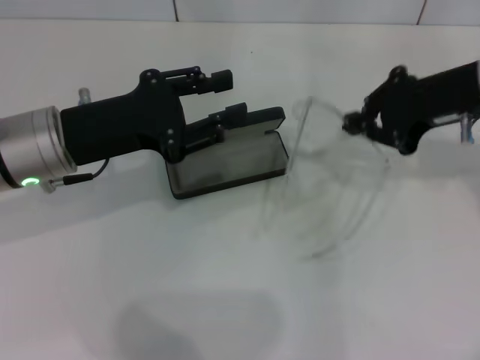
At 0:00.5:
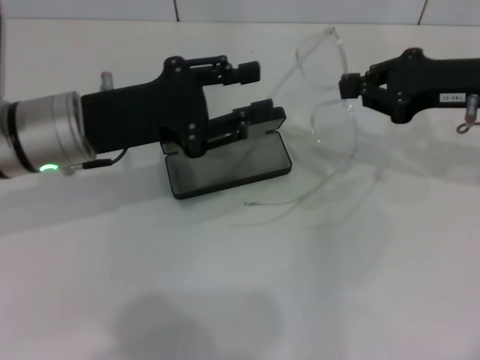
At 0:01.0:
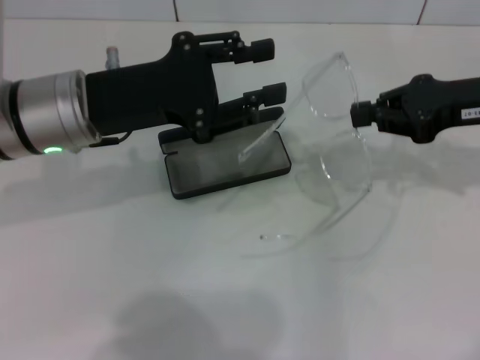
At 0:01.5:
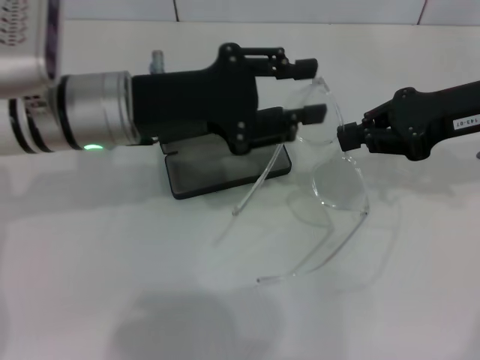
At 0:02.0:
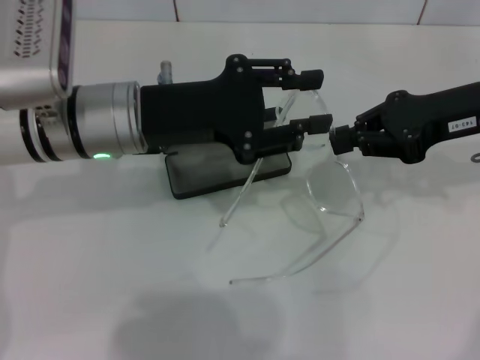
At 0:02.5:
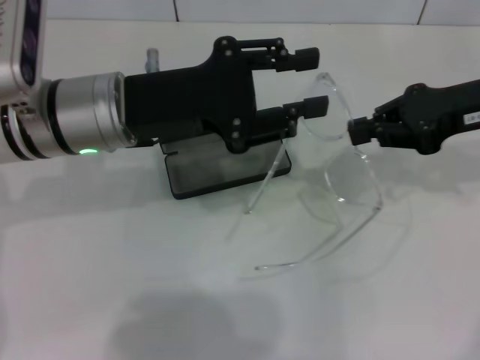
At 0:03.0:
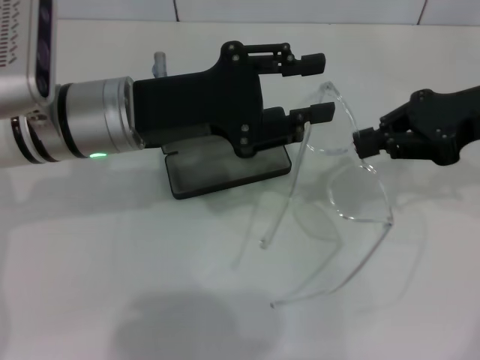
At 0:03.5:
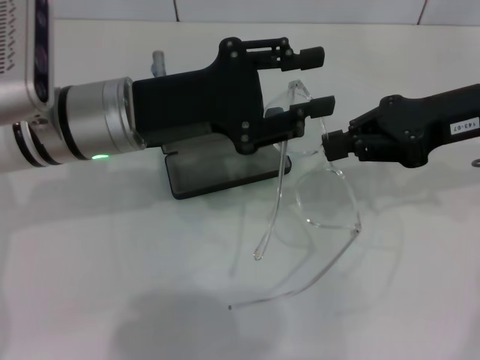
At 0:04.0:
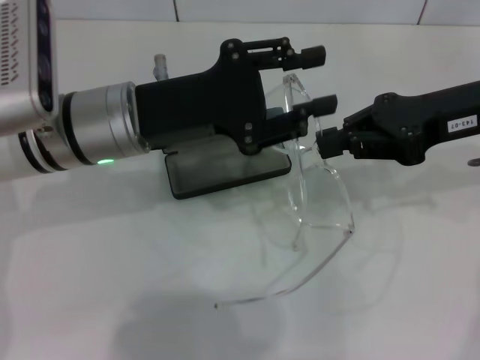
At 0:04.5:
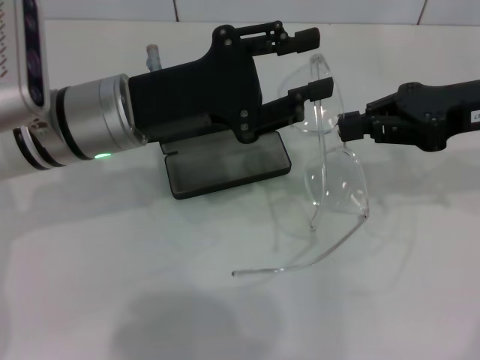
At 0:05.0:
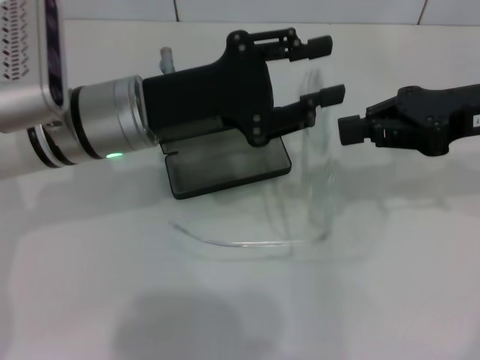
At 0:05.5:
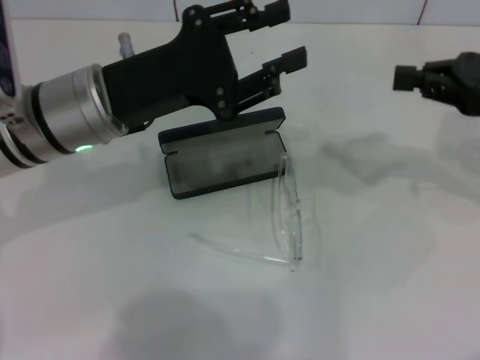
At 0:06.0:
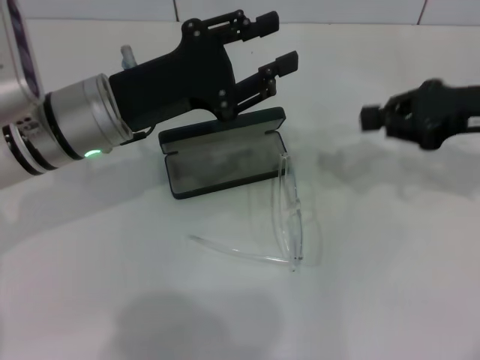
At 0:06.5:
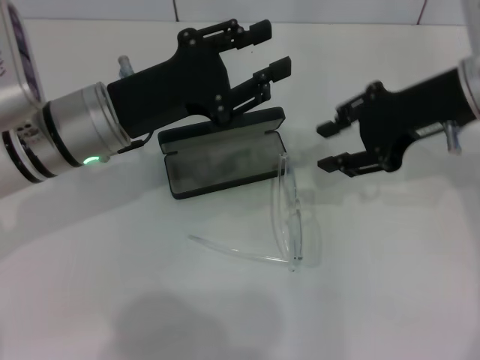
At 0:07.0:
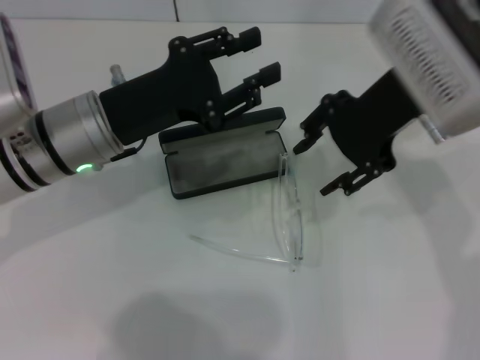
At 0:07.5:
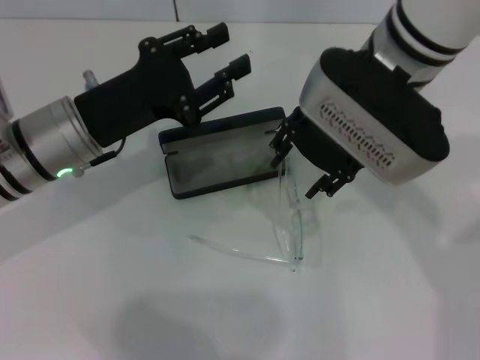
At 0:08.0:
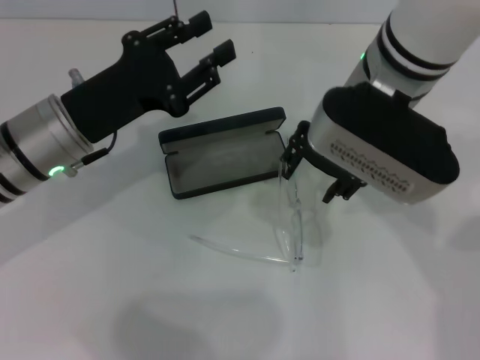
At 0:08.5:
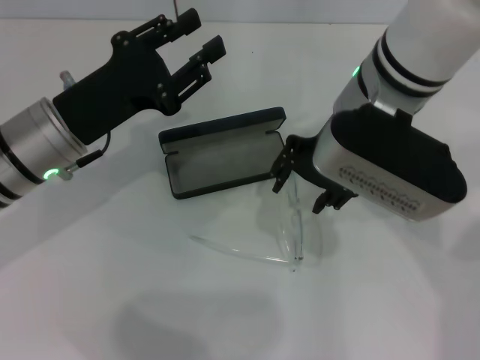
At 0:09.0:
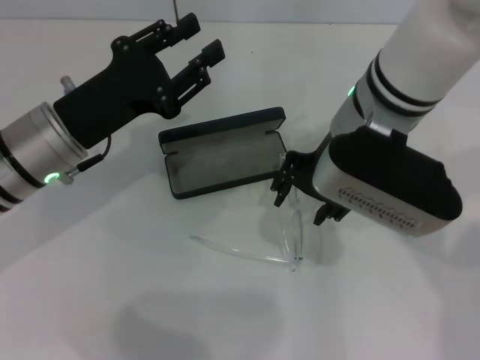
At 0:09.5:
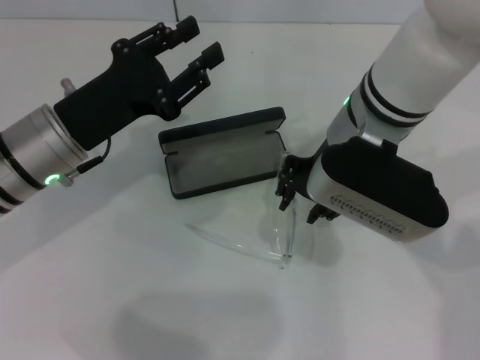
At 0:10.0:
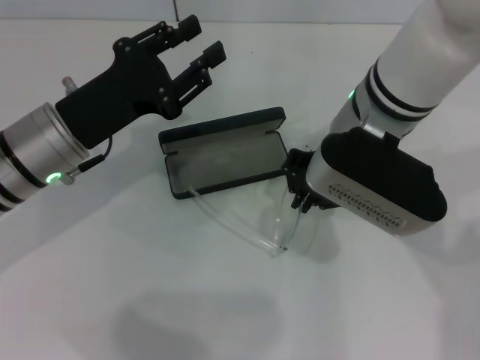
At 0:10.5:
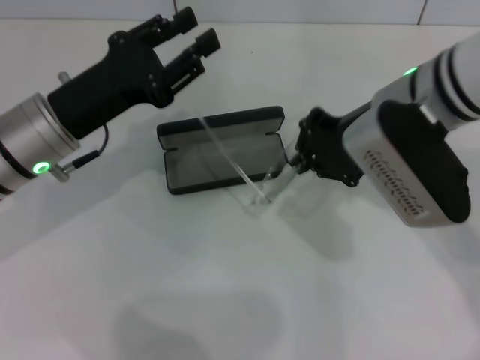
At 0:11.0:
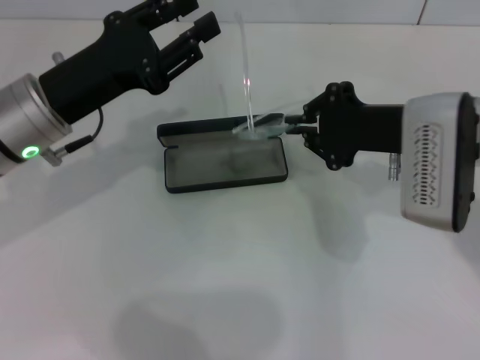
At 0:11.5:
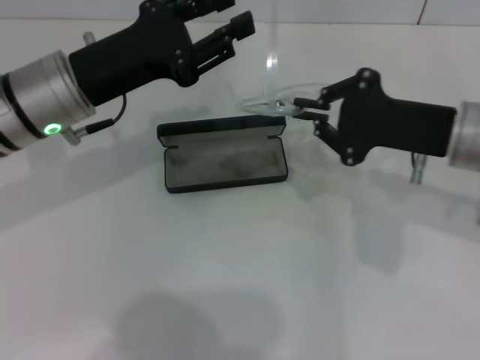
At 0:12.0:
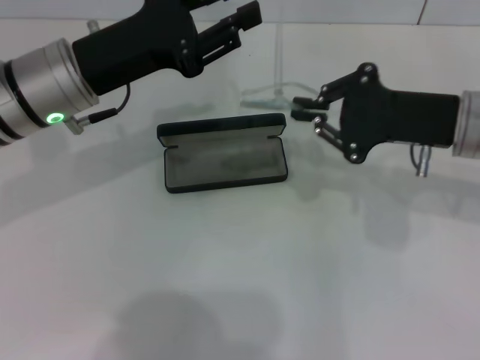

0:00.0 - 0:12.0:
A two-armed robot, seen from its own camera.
Step, 0:00.0 - 0:10.0: Grab the eyeglass frame with your right hand.
0:00.0 - 0:02.0: The left gripper goes roughly 5 cm to the right.
0:02.0 - 0:04.0: The grippers stay close to where they were, moving slightly.
0:06.0 - 0:08.0: The right gripper heads to the left, covering some 20 cm, and opens its fingers.
0:08.0 - 0:10.0: The right gripper closes.
0:10.0 - 0:12.0: The left gripper shifts by approximately 5 cm. Meanwhile the right gripper is displaced to the right by roughly 15 cm.

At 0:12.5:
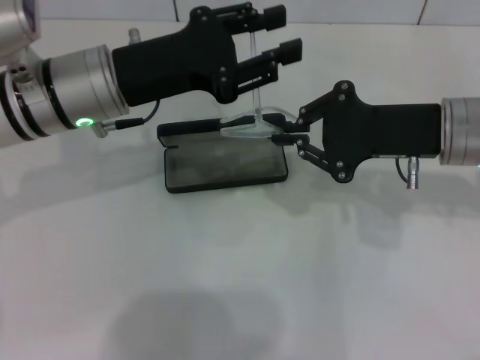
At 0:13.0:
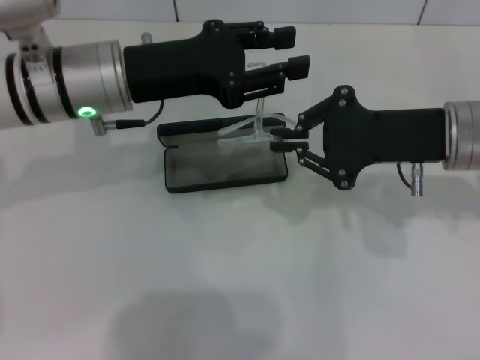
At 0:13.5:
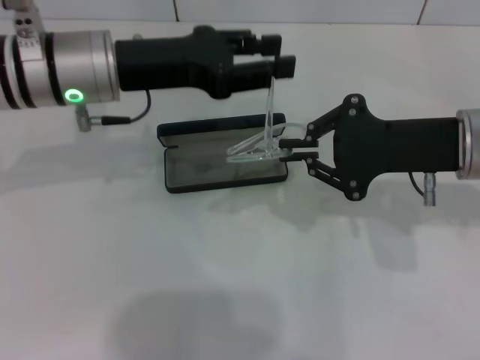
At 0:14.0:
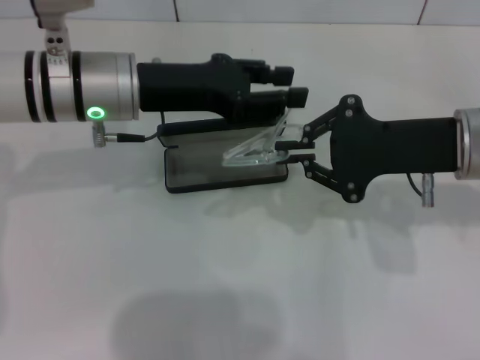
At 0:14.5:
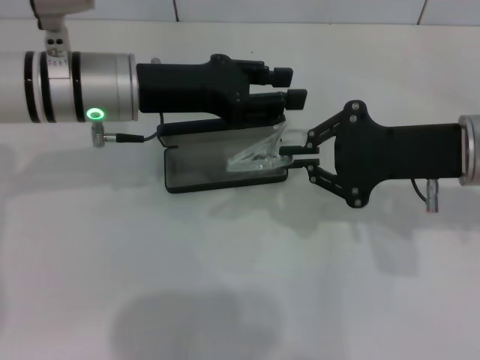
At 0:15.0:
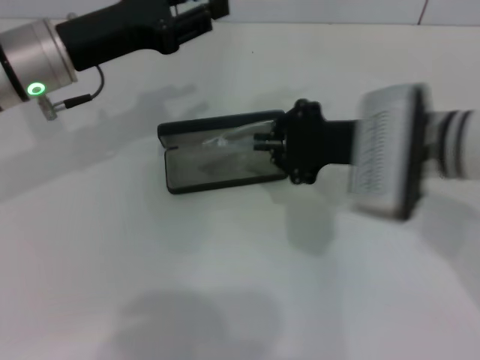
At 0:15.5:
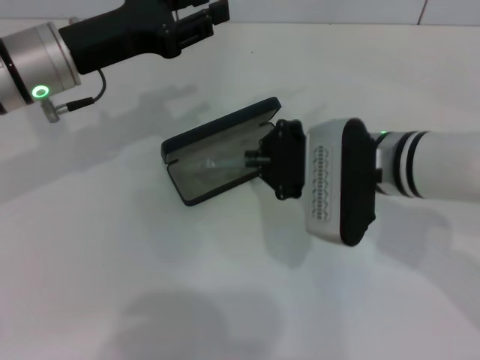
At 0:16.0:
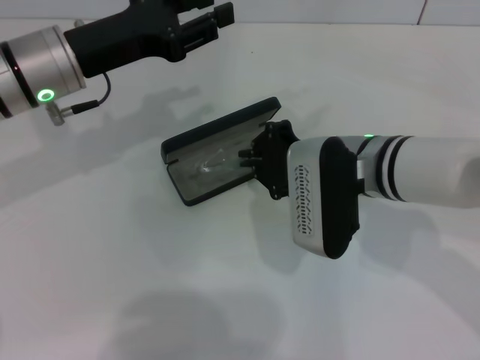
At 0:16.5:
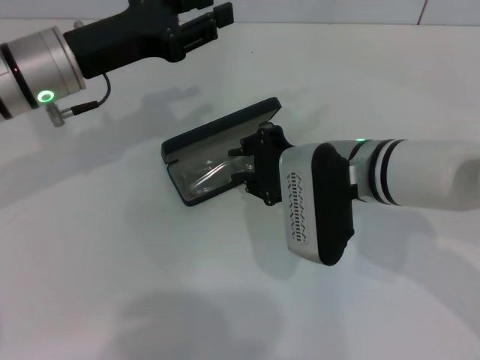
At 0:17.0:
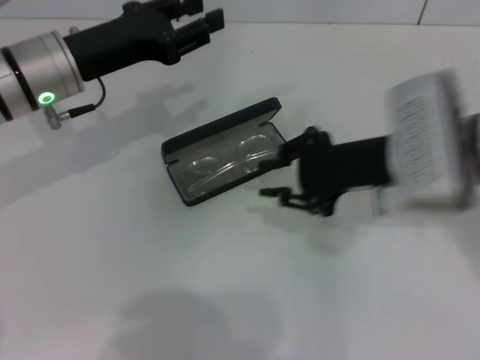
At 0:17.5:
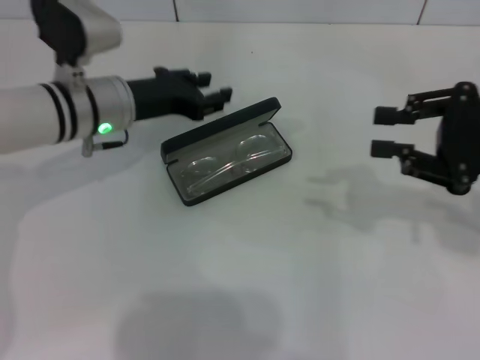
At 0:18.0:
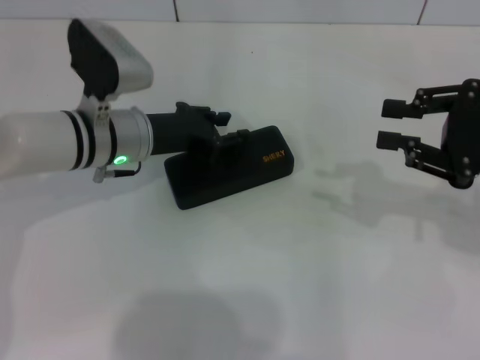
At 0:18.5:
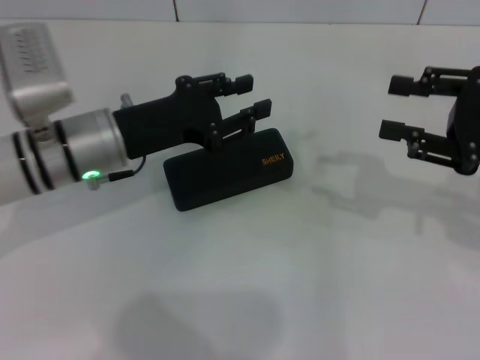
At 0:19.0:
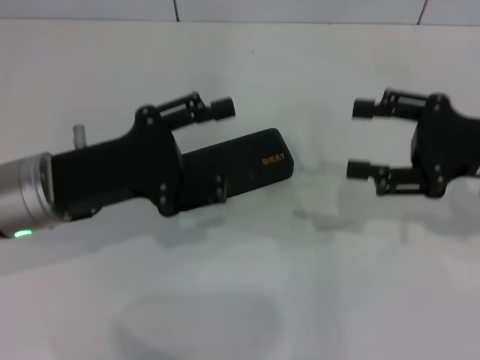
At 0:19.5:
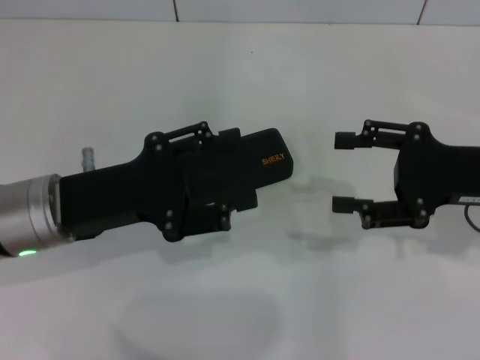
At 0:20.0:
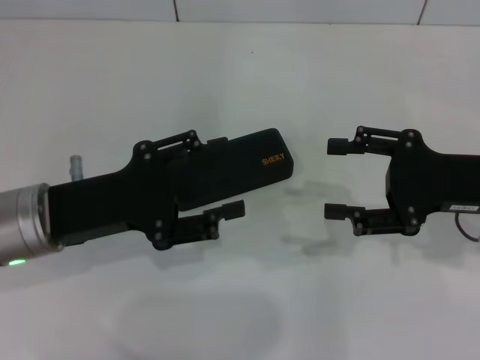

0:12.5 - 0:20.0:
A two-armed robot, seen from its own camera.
Step, 0:12.5 - 0:14.5: Fold the frame with your left hand.
Step, 0:15.0 - 0:16.5: Put the glasses into the case with your right hand.
Step, 0:17.0 - 0:18.0: Close the glasses case with your left hand.
0:14.5 - 0:16.5: The left gripper shifts by approximately 5 cm. The right gripper moves to the left and downward, some 15 cm.
0:16.5 - 0:18.0: The left gripper travels downward by about 10 cm. The right gripper moves to the right, roughly 20 cm.
0:18.0 - 0:20.0: The right gripper ends up roughly 5 cm from where it was, and opens. The left gripper is displaced backward and to the left by about 15 cm, and opens up.

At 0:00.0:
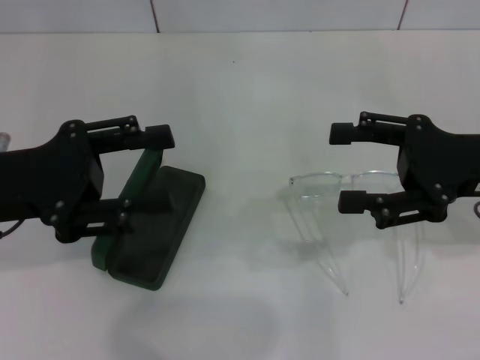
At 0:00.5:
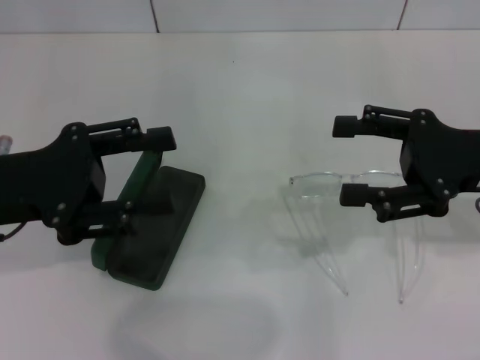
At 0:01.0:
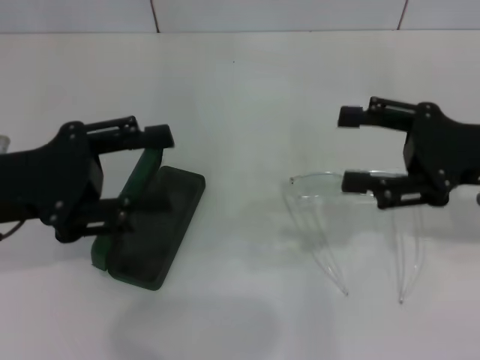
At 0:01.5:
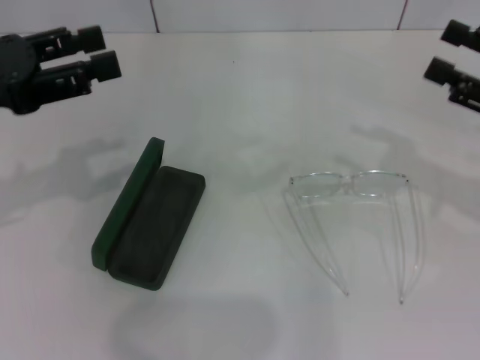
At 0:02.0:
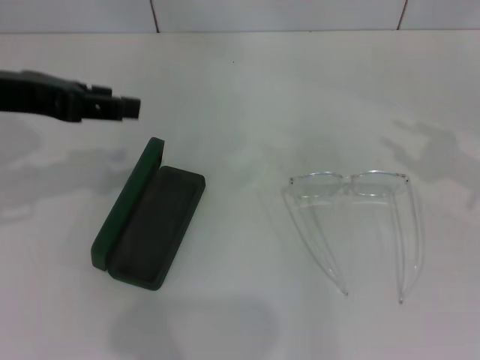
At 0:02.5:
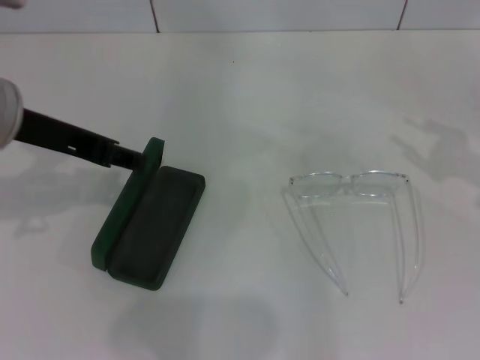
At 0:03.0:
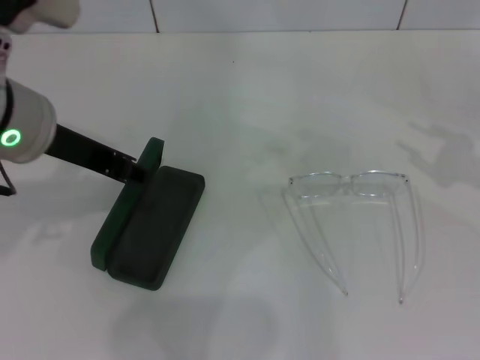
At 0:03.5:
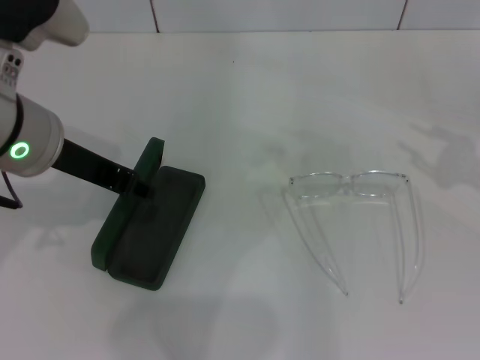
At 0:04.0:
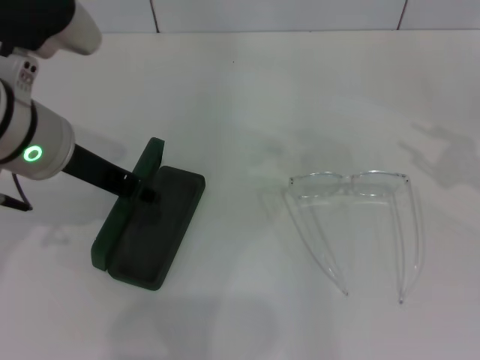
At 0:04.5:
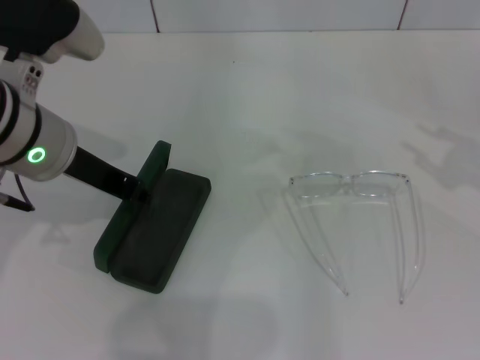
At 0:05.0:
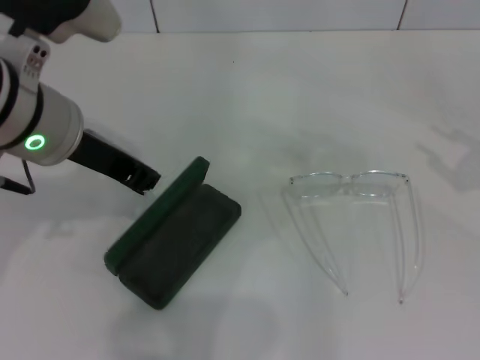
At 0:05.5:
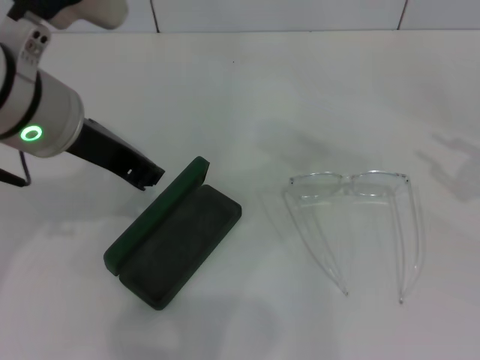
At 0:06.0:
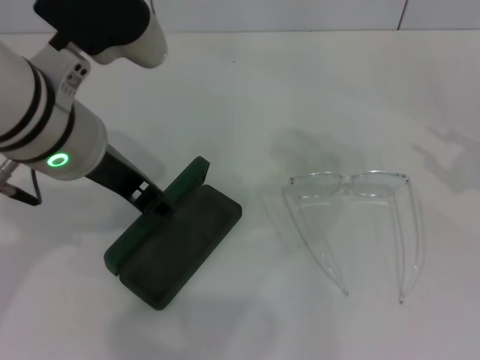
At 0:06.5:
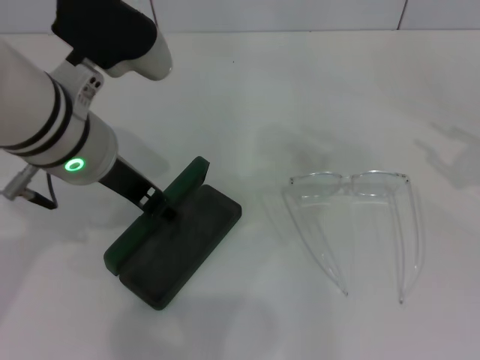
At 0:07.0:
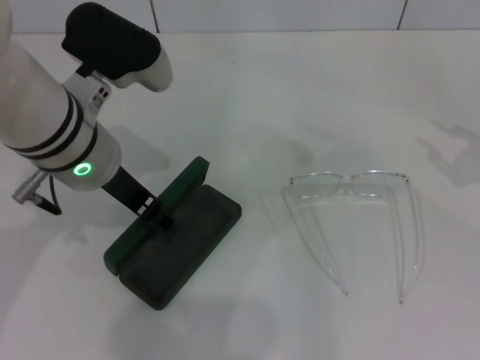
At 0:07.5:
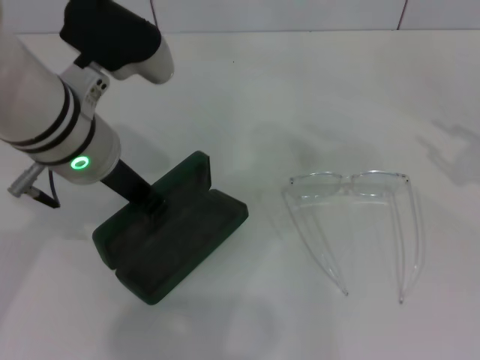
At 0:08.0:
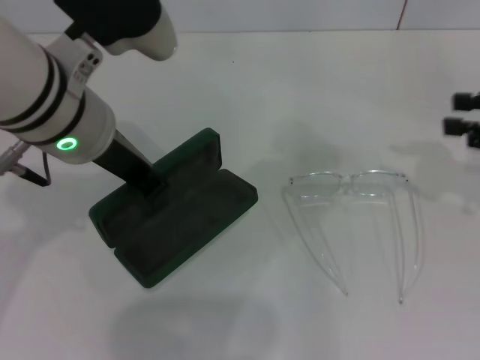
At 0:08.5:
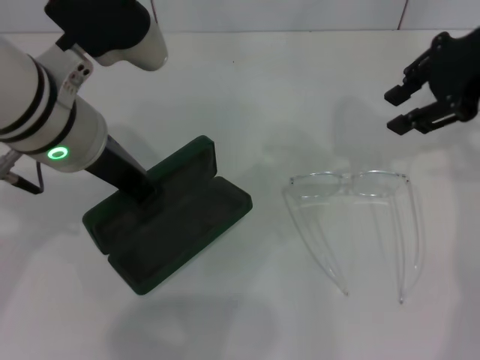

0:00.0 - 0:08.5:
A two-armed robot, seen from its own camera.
Step, 0:00.0 - 0:07.0: Grab the glasses case with your left hand.
0:00.0 - 0:02.0: The left gripper moves upward, roughly 10 cm, while the right gripper goes about 10 cm to the right, and closes up.
0:02.0 - 0:04.0: The left gripper is displaced to the right by approximately 10 cm.
0:04.0 - 0:06.5: The left gripper closes and opens again.
0:06.5 - 0:08.5: The left gripper closes its fingers; the right gripper shifts approximately 25 cm to the left, upward and forward.
